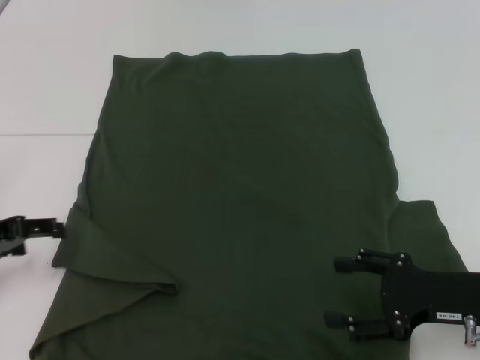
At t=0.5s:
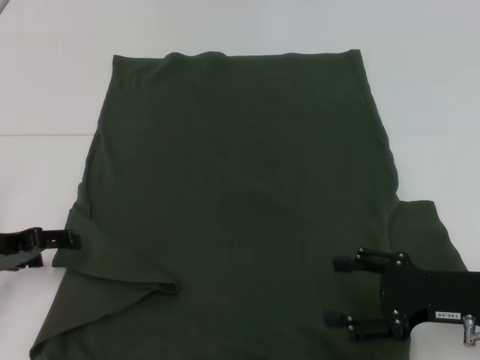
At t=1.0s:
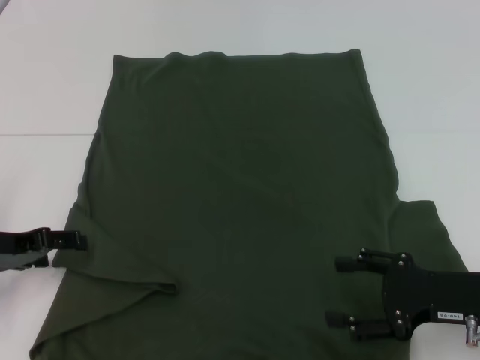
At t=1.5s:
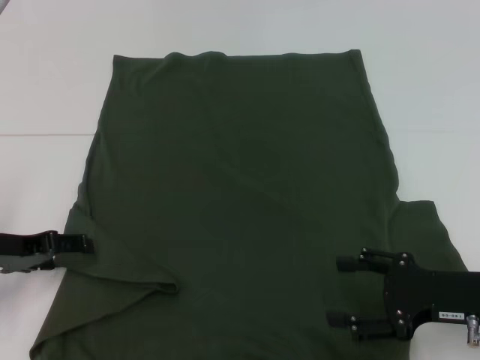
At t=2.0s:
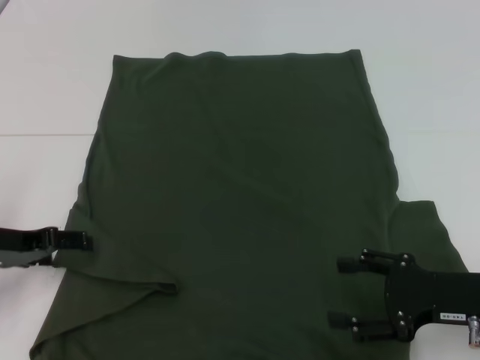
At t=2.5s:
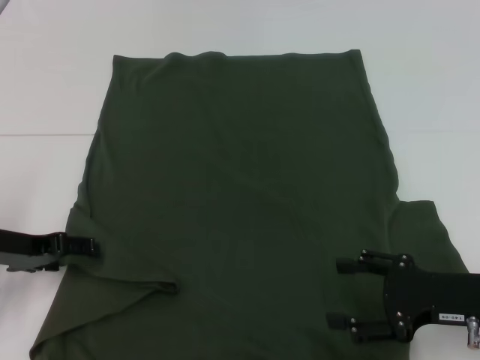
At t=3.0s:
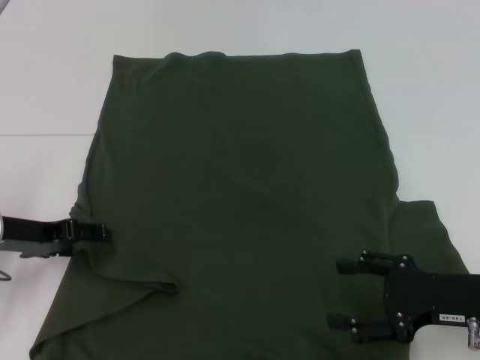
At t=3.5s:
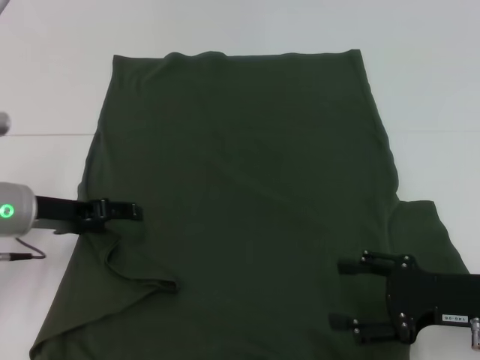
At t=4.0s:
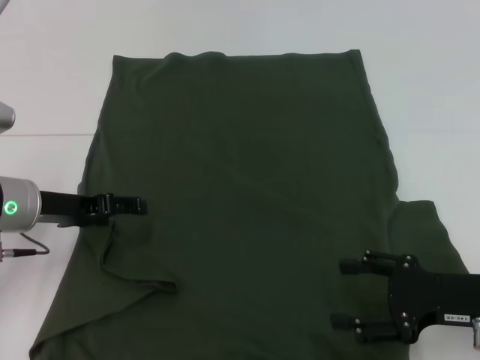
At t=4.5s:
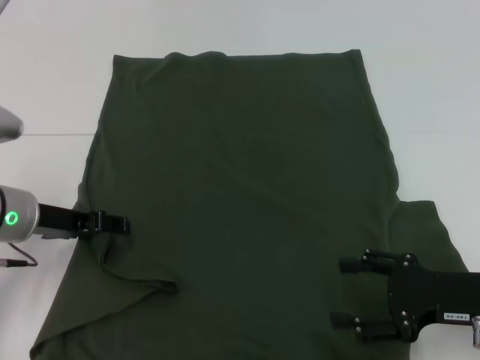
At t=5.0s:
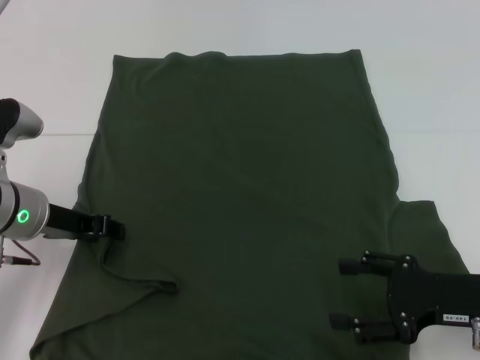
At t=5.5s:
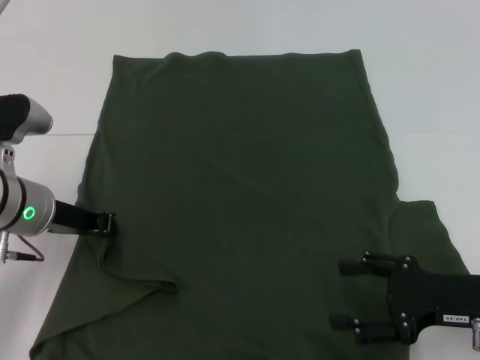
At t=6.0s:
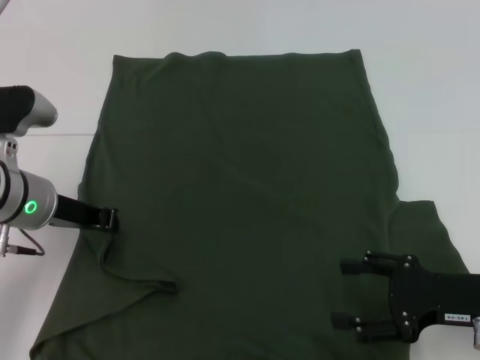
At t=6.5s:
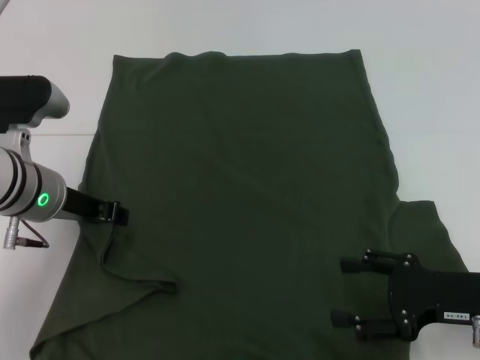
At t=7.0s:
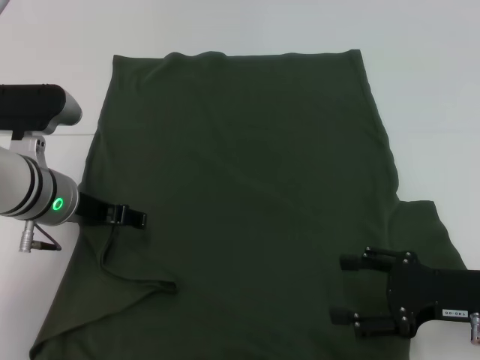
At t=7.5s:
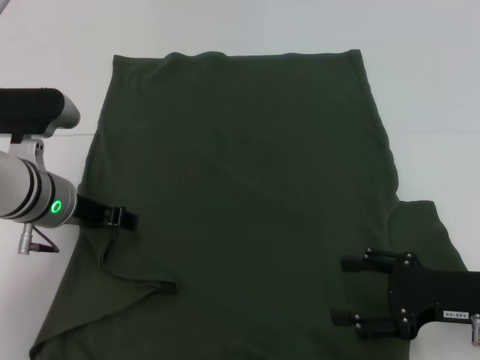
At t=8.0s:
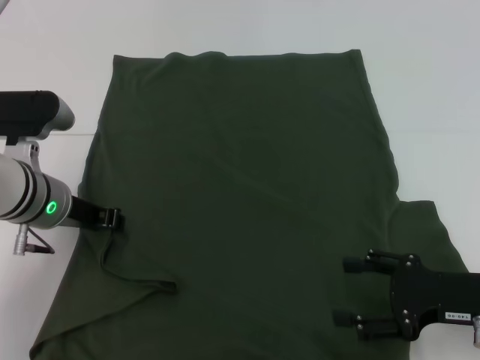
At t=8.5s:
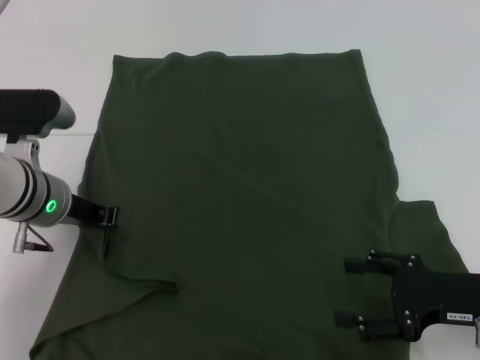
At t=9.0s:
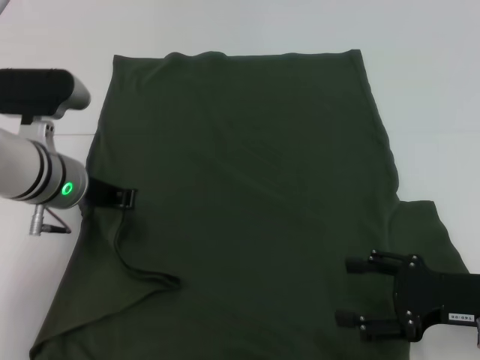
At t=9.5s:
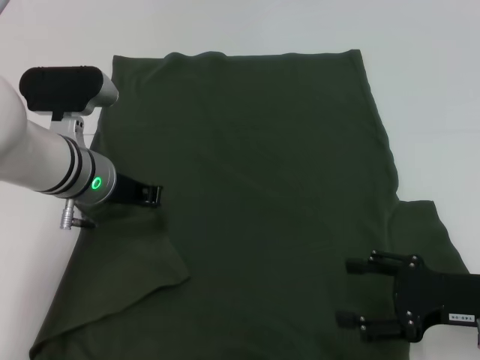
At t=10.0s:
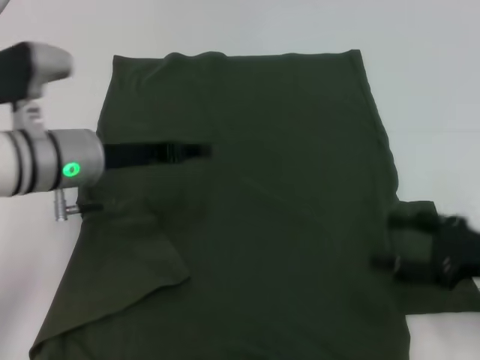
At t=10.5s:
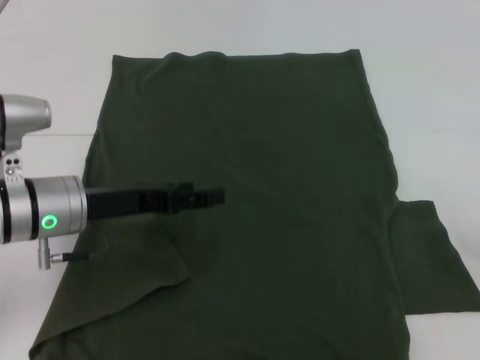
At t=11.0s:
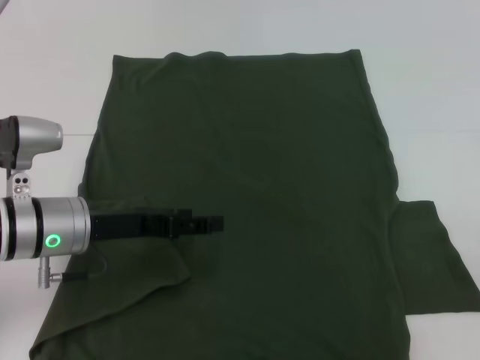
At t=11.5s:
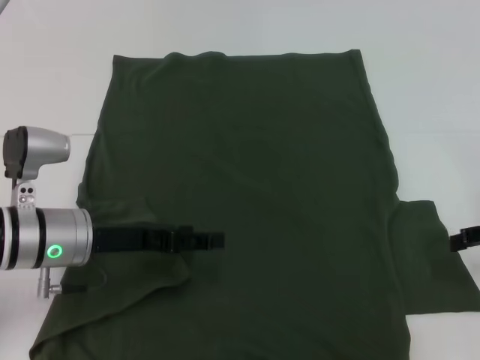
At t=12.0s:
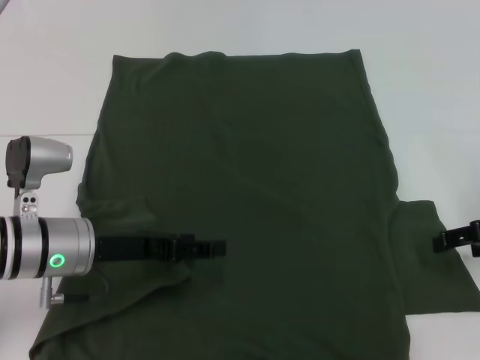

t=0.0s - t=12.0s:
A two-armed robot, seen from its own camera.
Step, t=0.0s - t=9.0s: Fold the bottom left sleeve with your left hand.
t=0.0s - t=2.0s: The grippers stay close to where they were, moving slightly.
t=2.0s - t=4.0s: The left gripper goes some 5 cm to the right.
t=4.0s - t=6.0s: The left gripper closes.
t=6.0s - t=8.0s: The left gripper opens.
t=10.0s - t=12.0s: The left gripper heads downward, covering some 5 cm, and opens up; the right gripper moves forward, some 10 cm.

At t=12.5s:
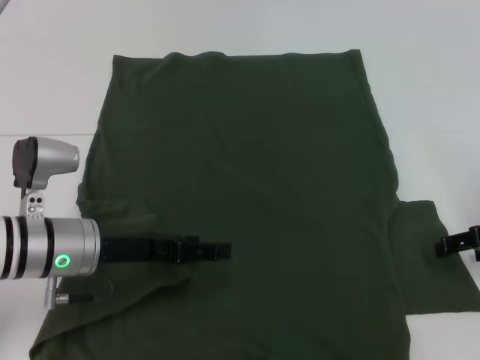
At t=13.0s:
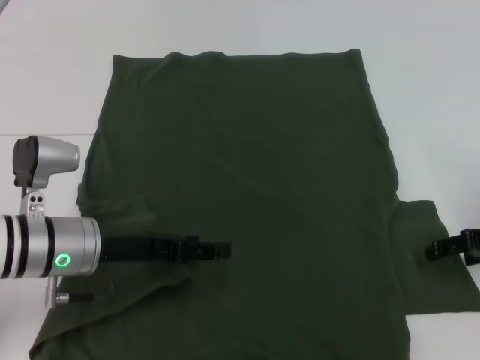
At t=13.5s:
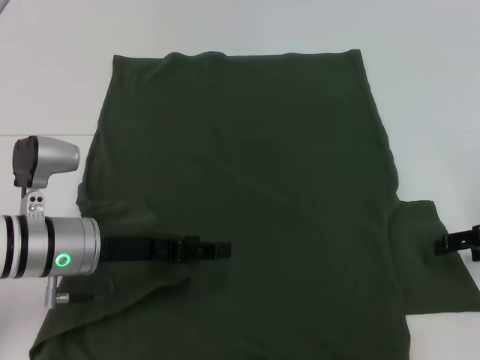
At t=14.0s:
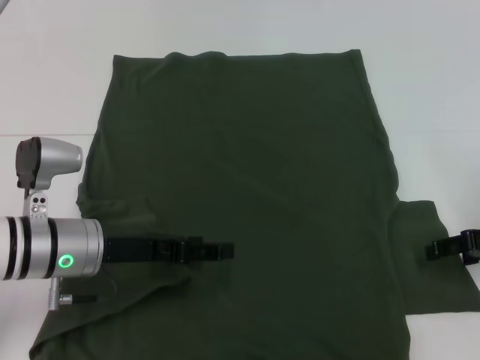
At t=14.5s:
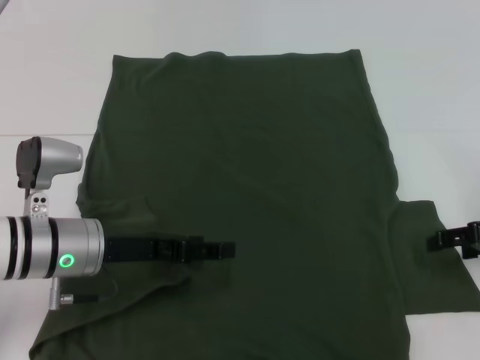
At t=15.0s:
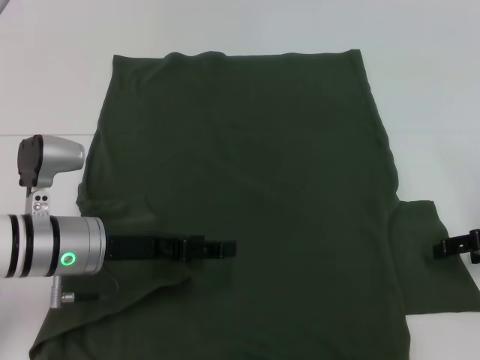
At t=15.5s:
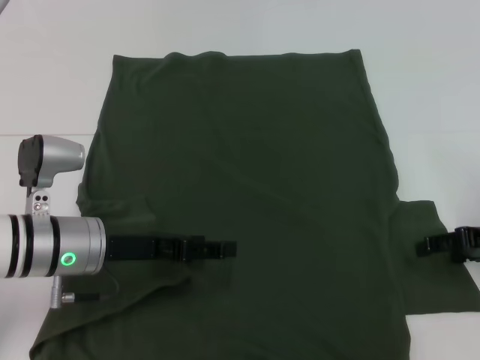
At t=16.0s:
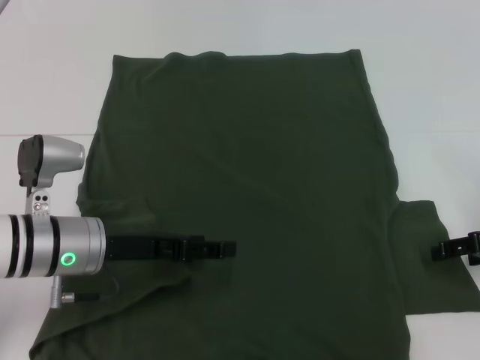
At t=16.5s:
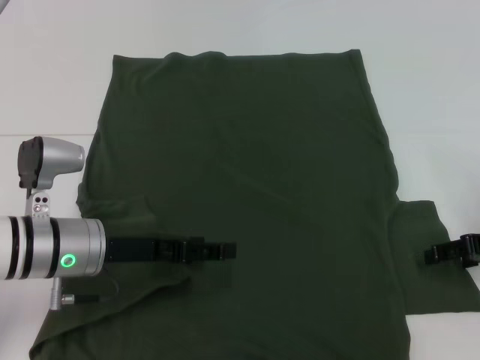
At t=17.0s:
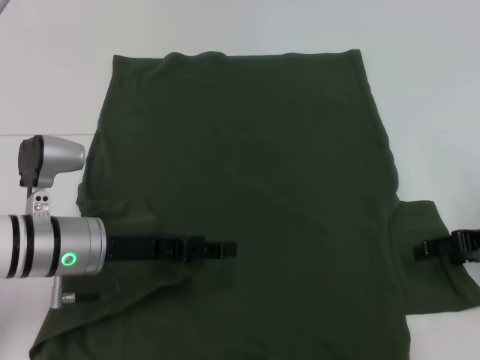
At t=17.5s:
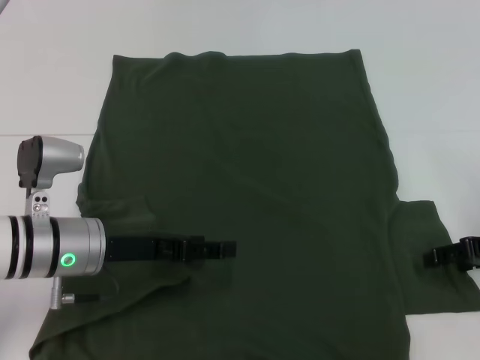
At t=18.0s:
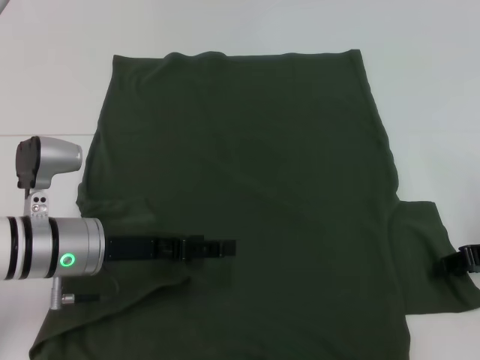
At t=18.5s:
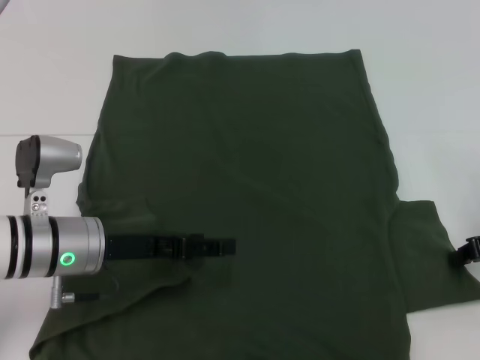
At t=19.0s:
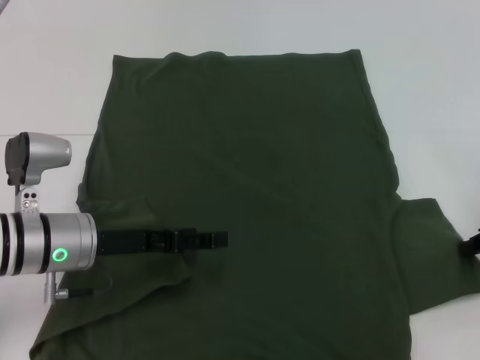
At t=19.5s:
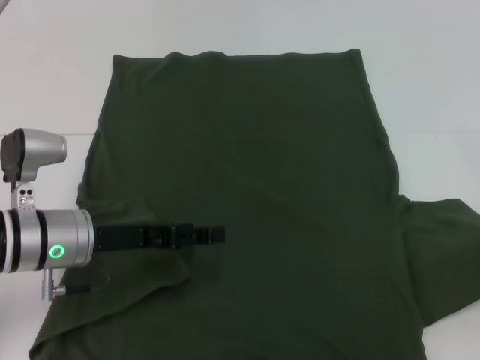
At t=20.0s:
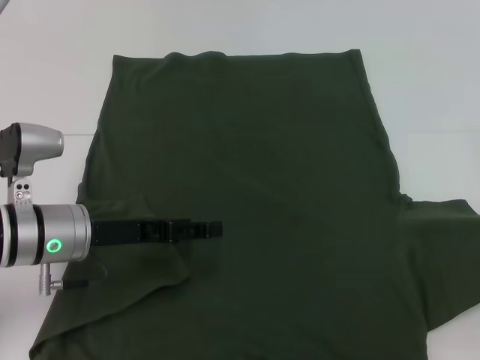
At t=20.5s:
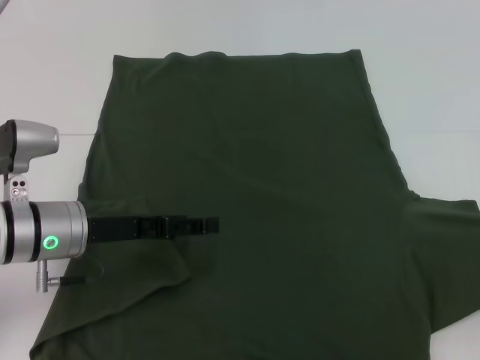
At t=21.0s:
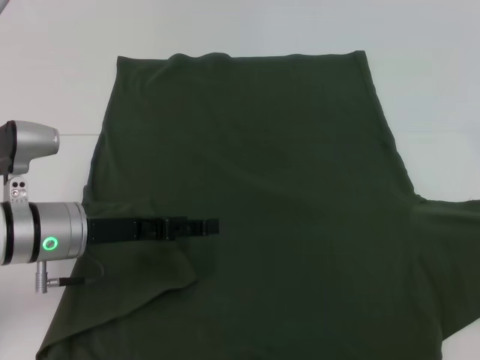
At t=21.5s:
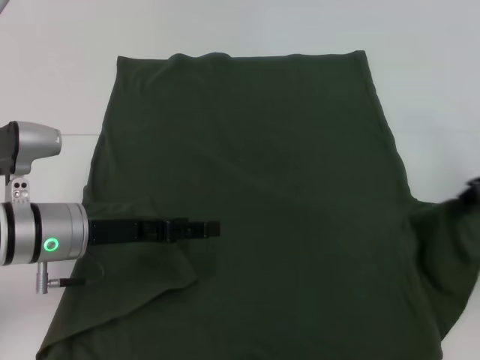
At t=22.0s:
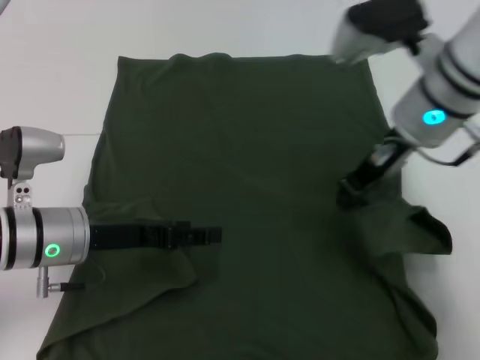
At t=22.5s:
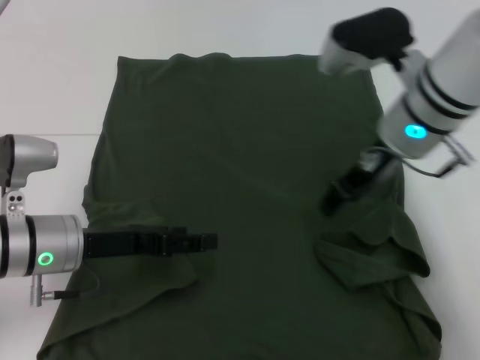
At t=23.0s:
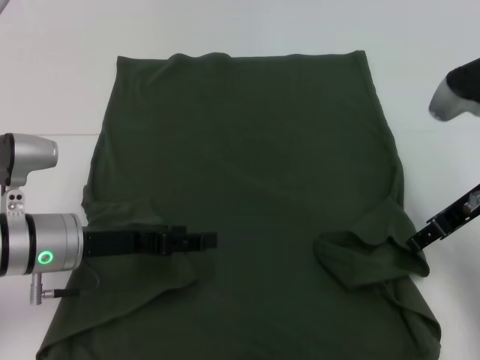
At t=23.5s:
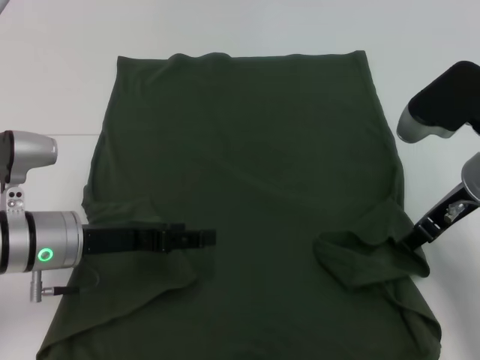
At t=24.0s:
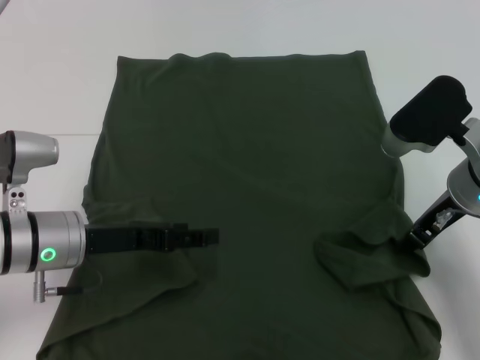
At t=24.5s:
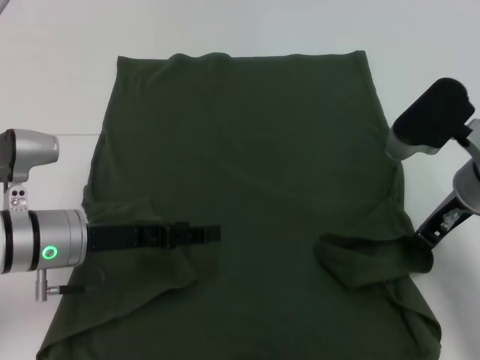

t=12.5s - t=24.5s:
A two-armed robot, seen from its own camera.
t=12.5s - t=16.5s: There are only small adjustments of the grippers.
t=16.5s - t=18.5s: The right gripper closes.
t=18.5s - t=20.5s: The right gripper shifts about 10 cm to the right and upward.
t=20.5s - t=22.5s: The right gripper shifts roughly 25 cm to the left, and opens.
t=22.5s - t=24.5s: The right gripper is displaced to the right and downward by roughly 10 cm, and opens, then closes once more.

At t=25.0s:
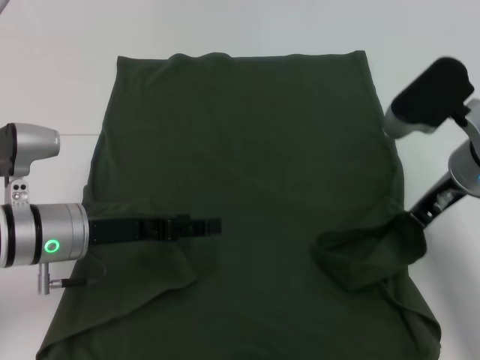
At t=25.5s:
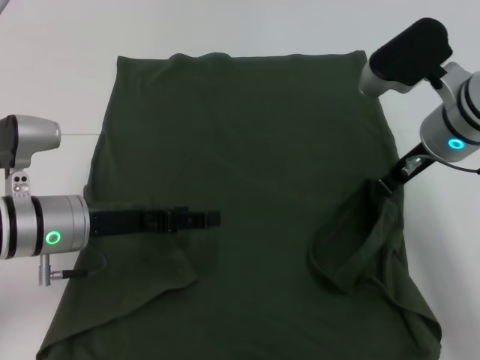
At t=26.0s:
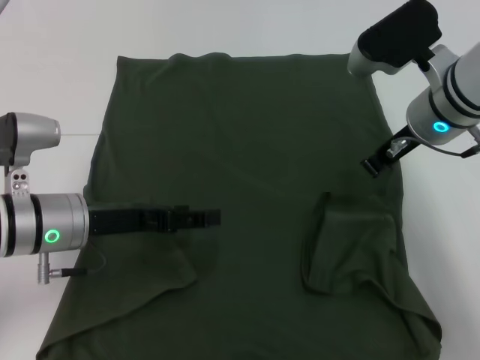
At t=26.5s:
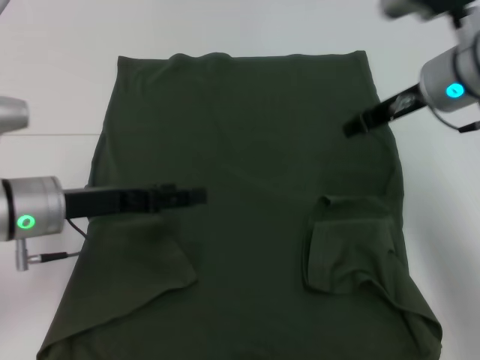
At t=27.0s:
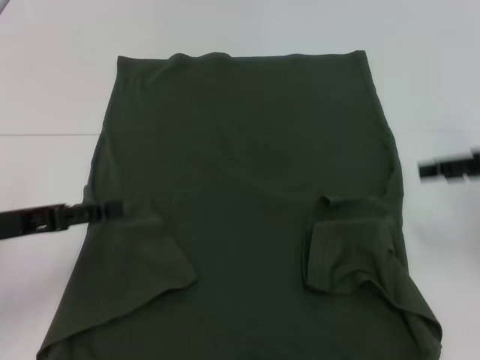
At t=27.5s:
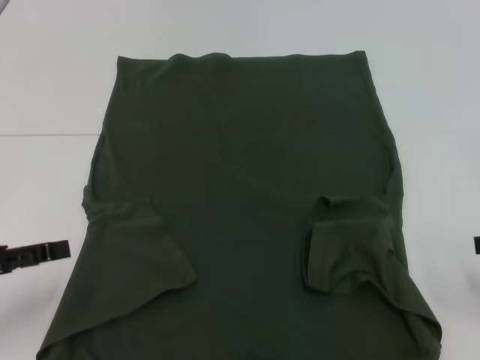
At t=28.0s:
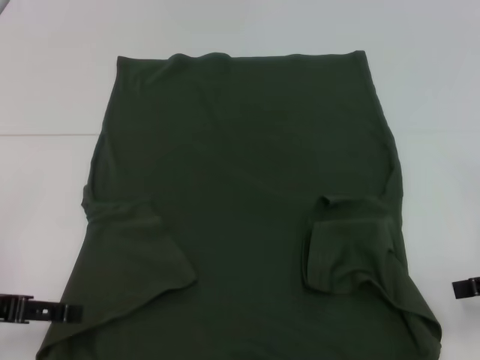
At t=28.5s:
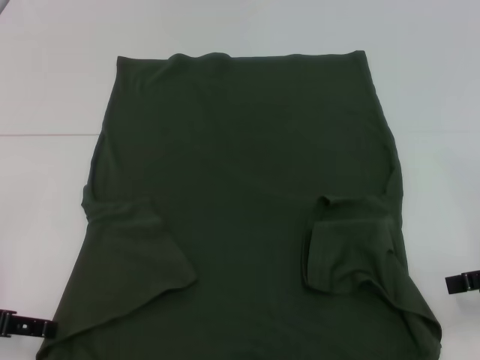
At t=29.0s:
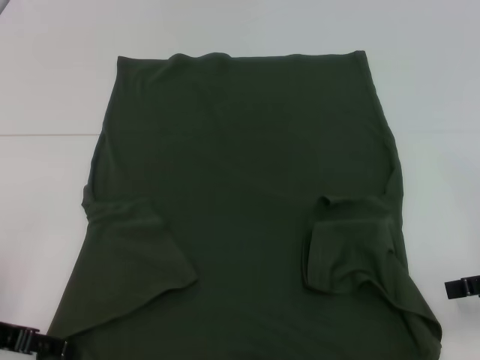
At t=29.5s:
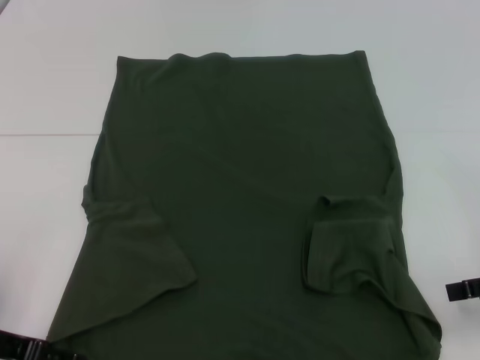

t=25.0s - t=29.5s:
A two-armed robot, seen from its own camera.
t=25.0s - t=27.0s: The right gripper is displaced to the right by roughly 10 cm, and opens; the left gripper goes about 10 cm to the left.
t=27.0s - t=29.5s: The right gripper goes roughly 10 cm backward and downward.
